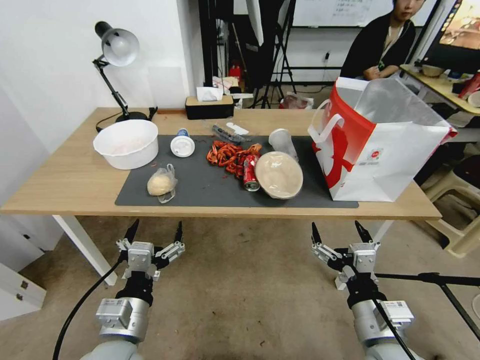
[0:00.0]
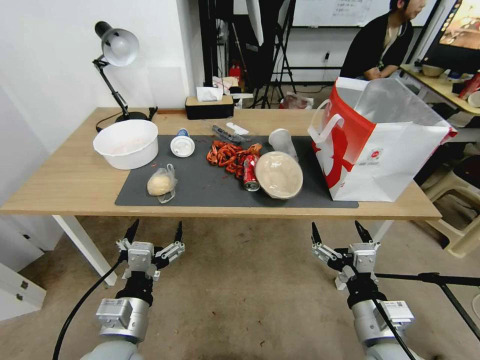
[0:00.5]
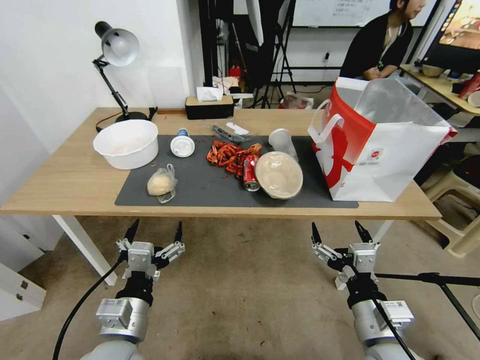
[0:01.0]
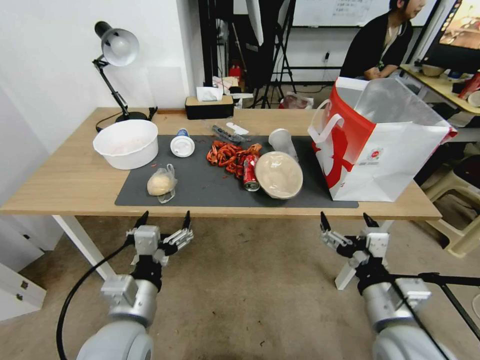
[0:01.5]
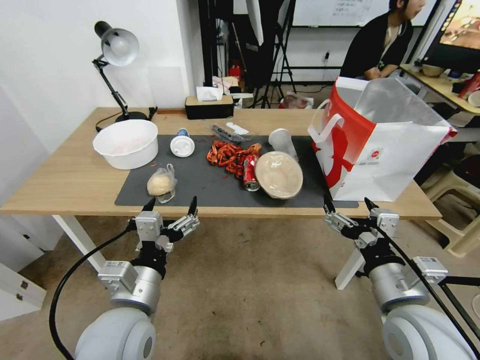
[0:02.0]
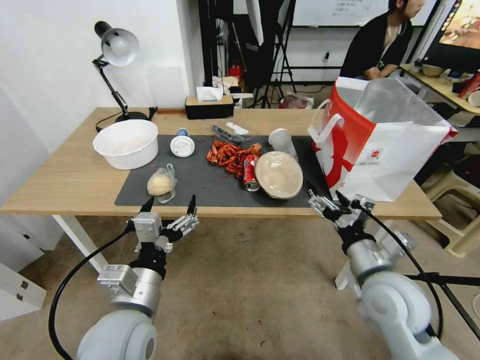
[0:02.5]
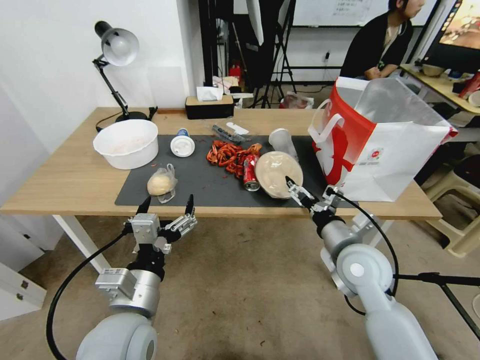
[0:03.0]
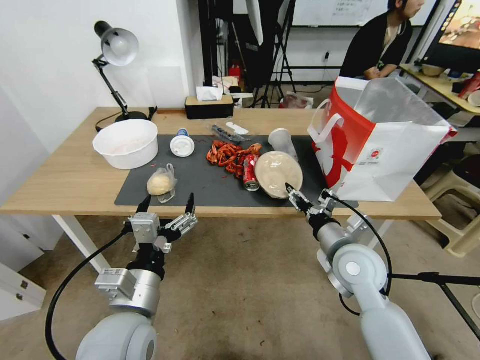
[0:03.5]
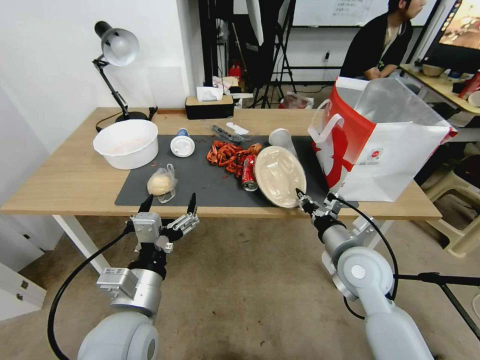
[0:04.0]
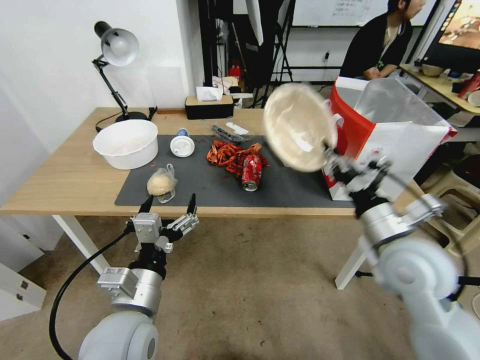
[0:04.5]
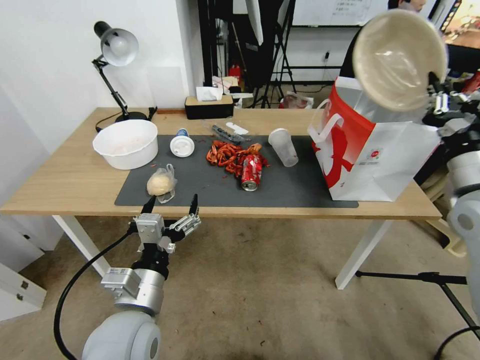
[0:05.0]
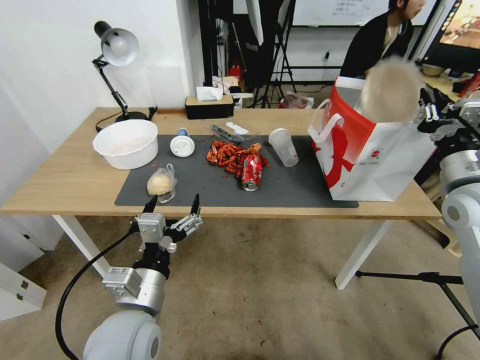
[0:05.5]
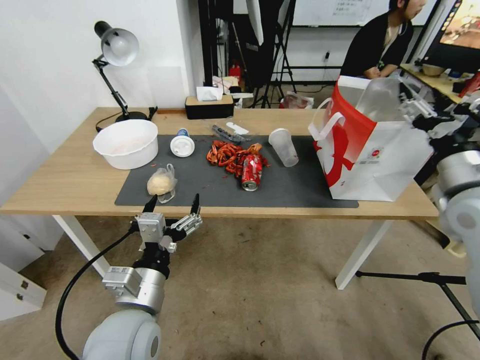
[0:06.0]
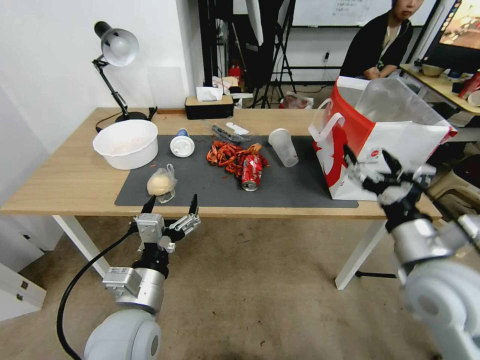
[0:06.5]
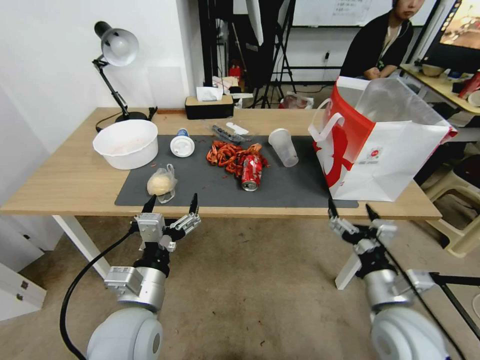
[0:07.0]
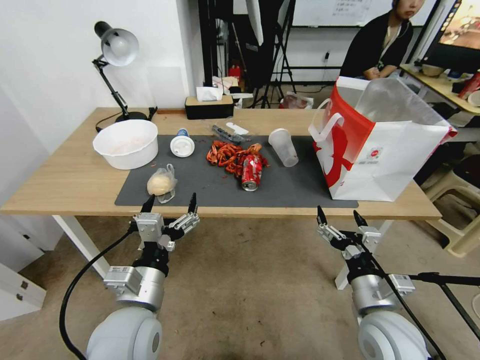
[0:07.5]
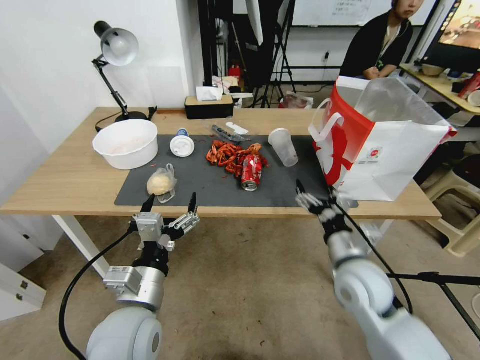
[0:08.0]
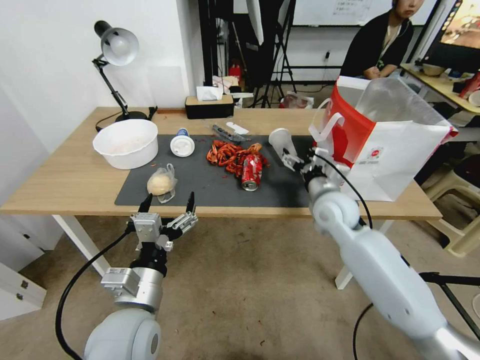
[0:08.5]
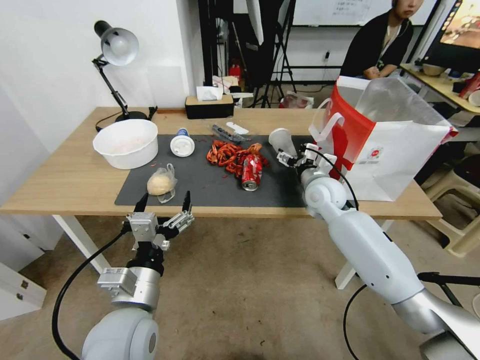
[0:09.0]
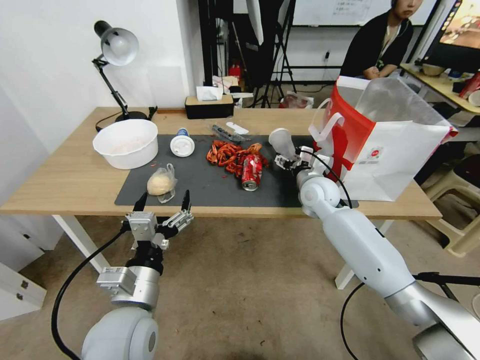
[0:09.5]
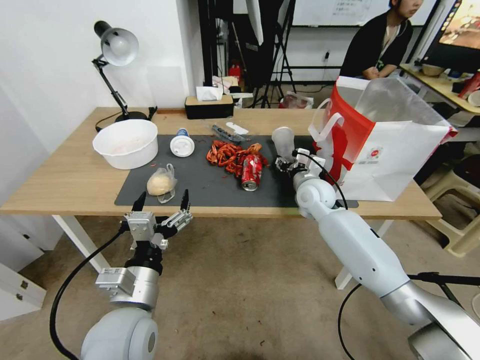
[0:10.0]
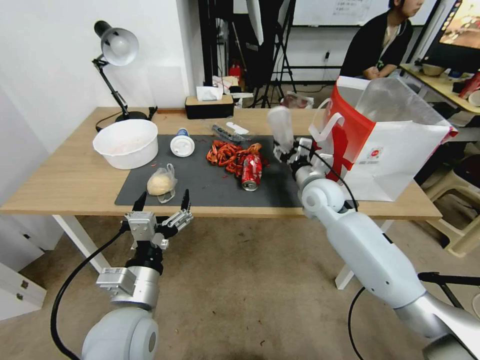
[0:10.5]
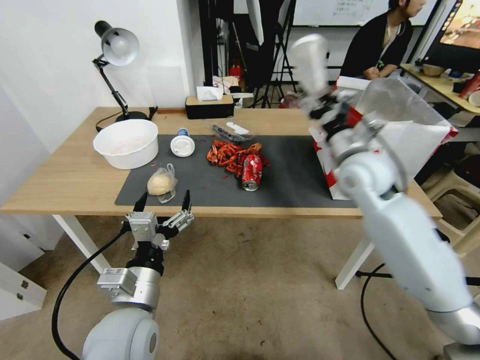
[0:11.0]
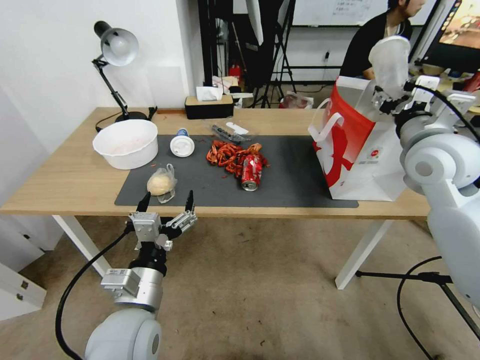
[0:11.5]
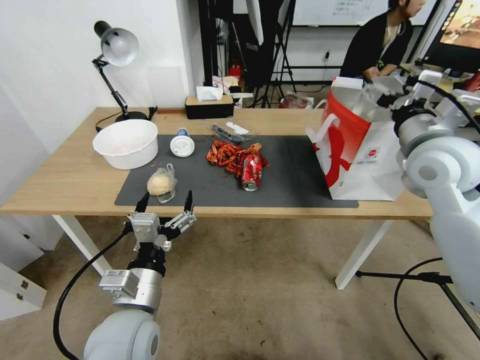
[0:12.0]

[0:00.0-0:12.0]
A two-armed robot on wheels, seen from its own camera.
0:02.0 to 0:04.0: The right gripper travels forward and downward by some 15 cm, and closes its fingers.
0:04.0 to 0:06.0: The right gripper heads upward and to the right, covering about 20 cm, and opens its fingers.
0:06.0 to 0:08.0: The right gripper shifts some 25 cm downward and to the left.
0:08.0 to 0:10.0: The right gripper heads forward, covering about 20 cm, and closes.
0:10.0 to 0:12.0: The right gripper shifts about 25 cm upward, to the right and backward, and opens up.

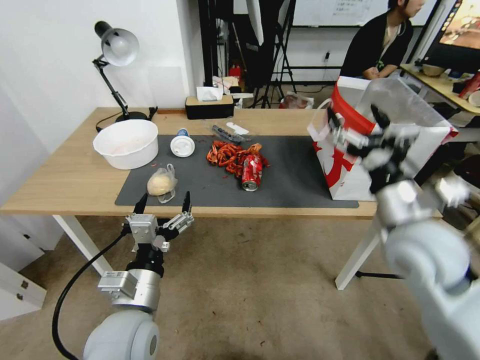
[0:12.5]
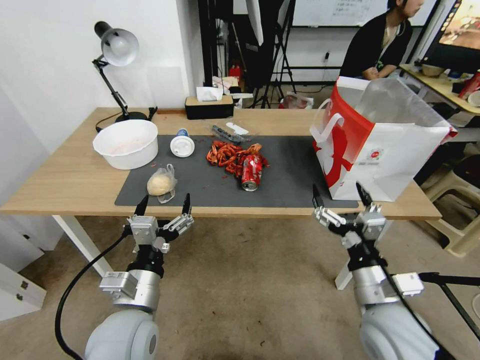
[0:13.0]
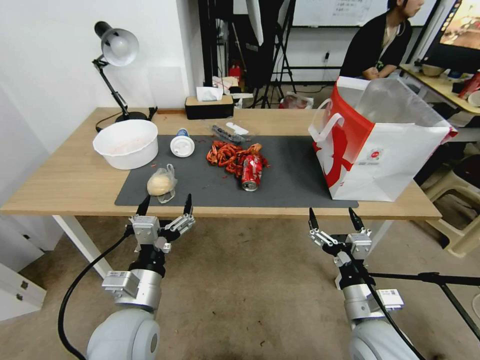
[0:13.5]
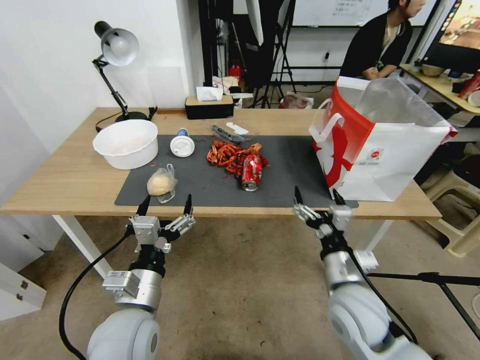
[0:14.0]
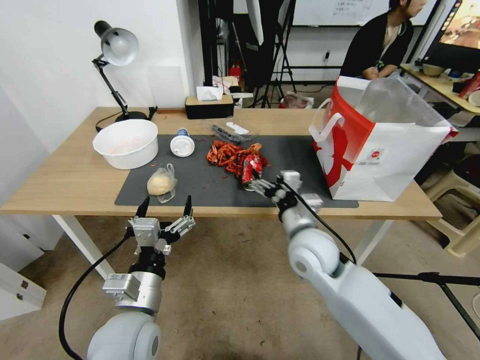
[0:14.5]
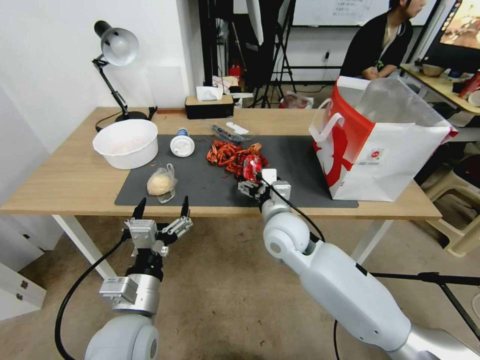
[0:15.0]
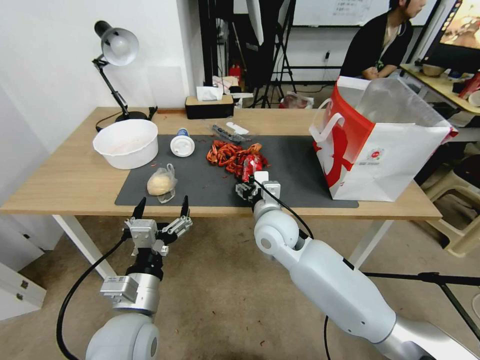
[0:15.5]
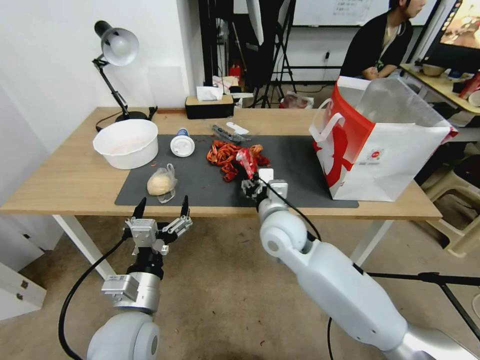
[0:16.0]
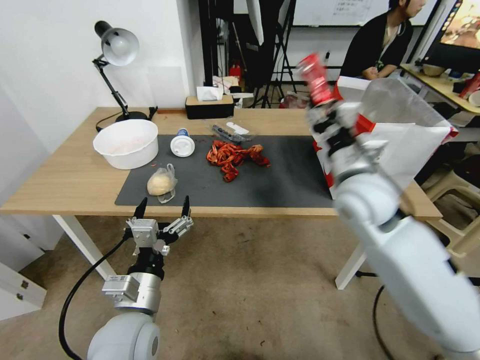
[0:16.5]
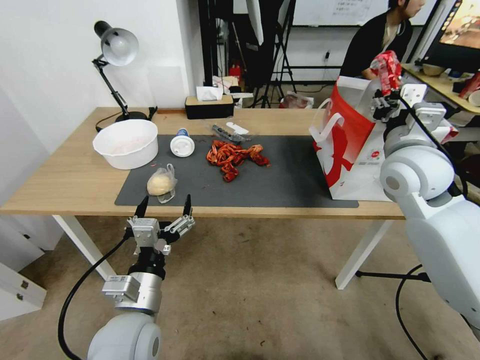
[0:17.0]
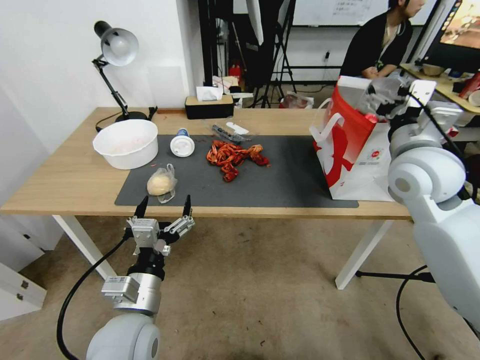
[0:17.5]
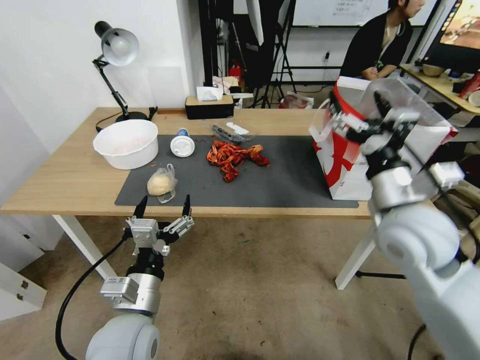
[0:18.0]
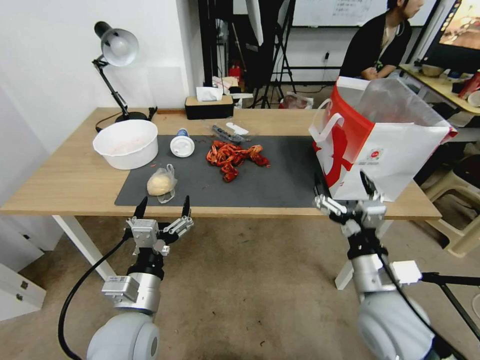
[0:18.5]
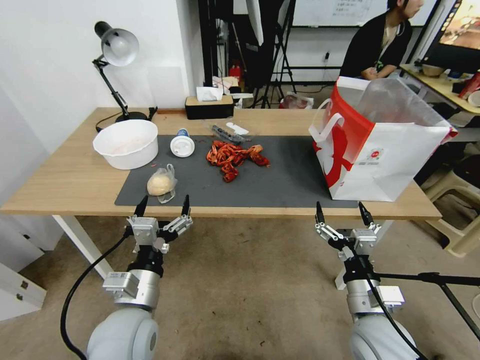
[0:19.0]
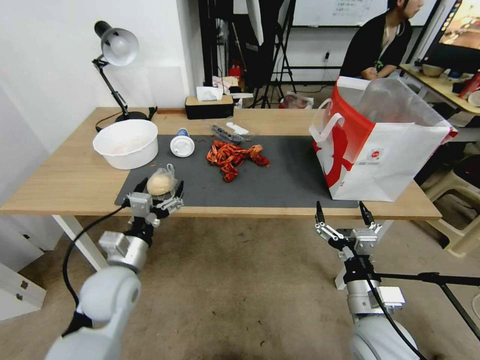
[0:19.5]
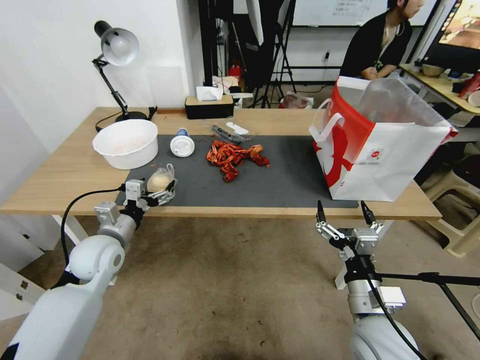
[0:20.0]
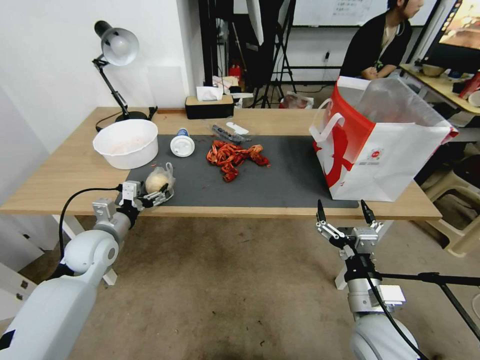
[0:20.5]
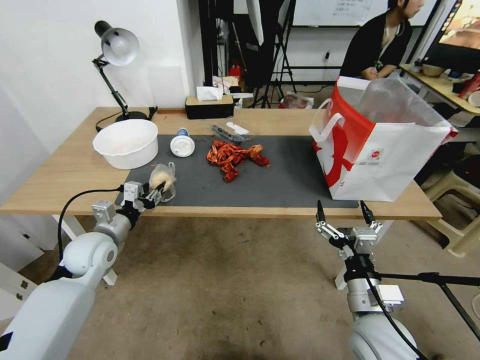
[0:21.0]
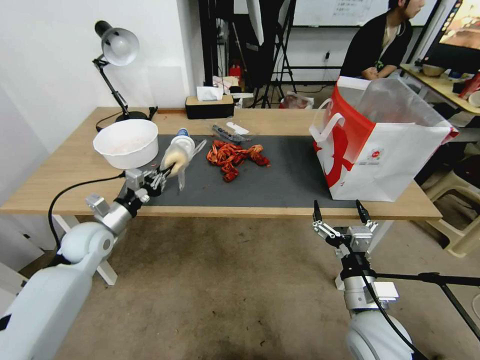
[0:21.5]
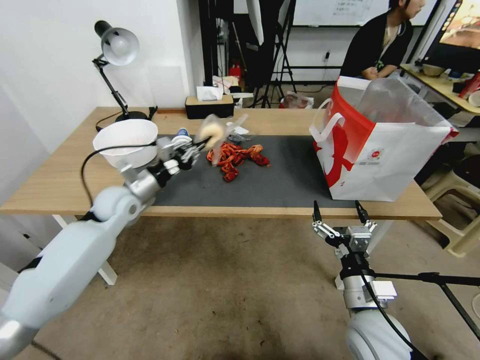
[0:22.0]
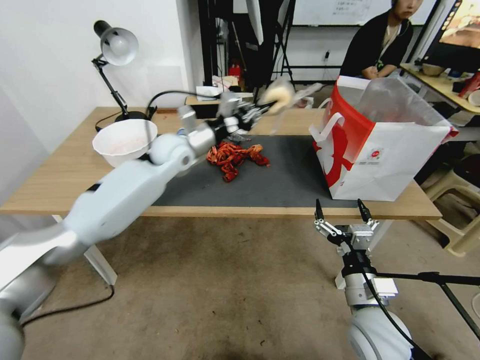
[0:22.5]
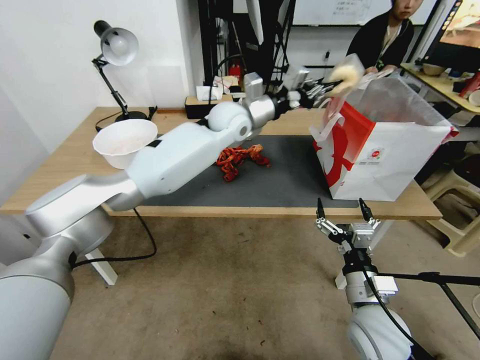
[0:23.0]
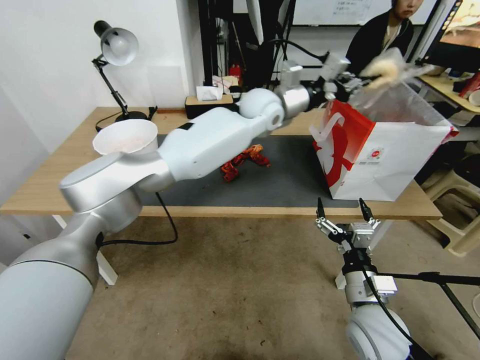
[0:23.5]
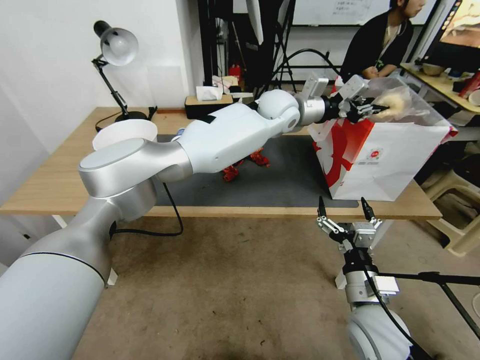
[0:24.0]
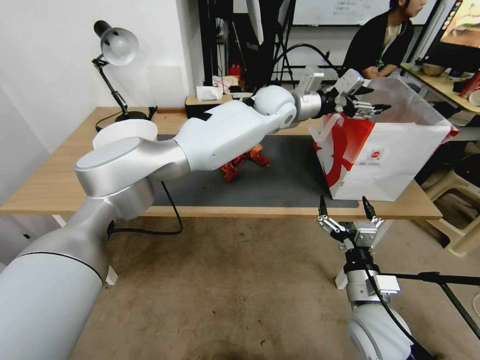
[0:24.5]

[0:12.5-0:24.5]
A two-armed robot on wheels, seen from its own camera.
0:12.5 to 0:14.5: The right gripper heads to the left and downward, covering some 20 cm.
0:14.5 to 0:16.5: The right gripper goes about 15 cm upward and to the right, and closes up.
0:16.5 to 0:18.5: The right gripper shifts some 20 cm backward and downward, and opens up.
0:18.5 to 0:20.5: The right gripper moves downward, approximately 5 cm. Meanwhile the left gripper goes about 25 cm forward and to the left.
0:20.5 to 0:22.5: The left gripper goes roughly 30 cm forward, to the right and upward, and closes.
0:22.5 to 0:24.5: The left gripper is displaced to the right by roughly 25 cm, and opens its fingers.

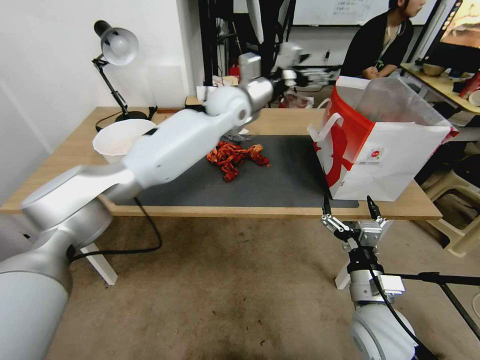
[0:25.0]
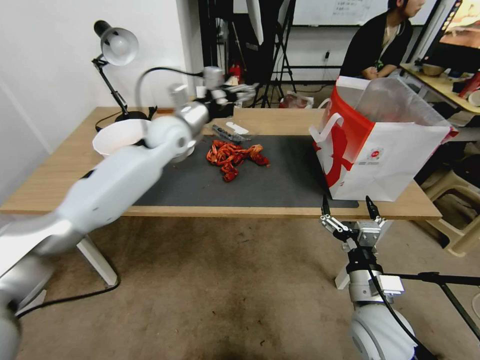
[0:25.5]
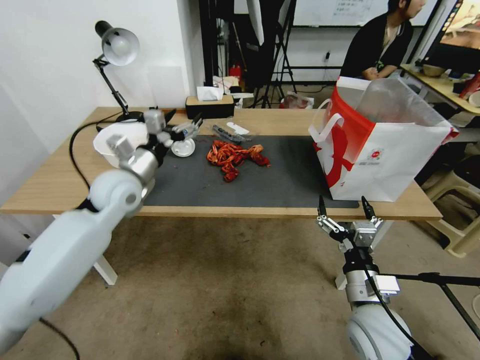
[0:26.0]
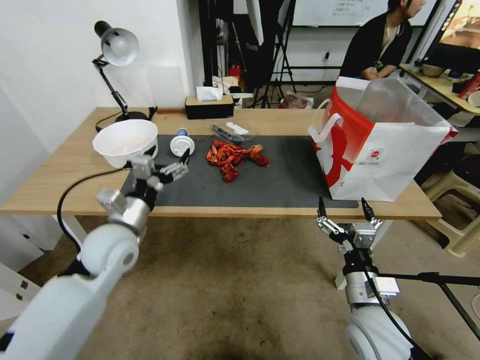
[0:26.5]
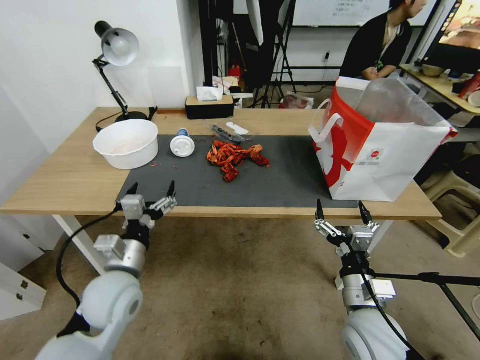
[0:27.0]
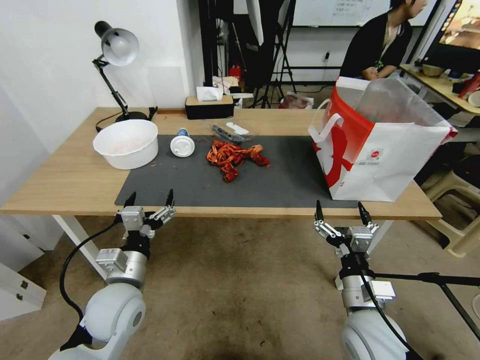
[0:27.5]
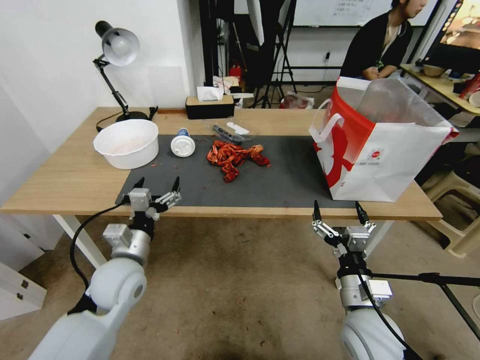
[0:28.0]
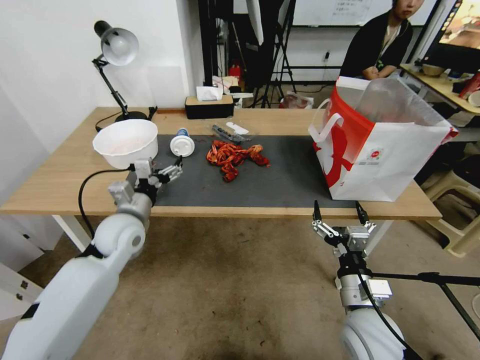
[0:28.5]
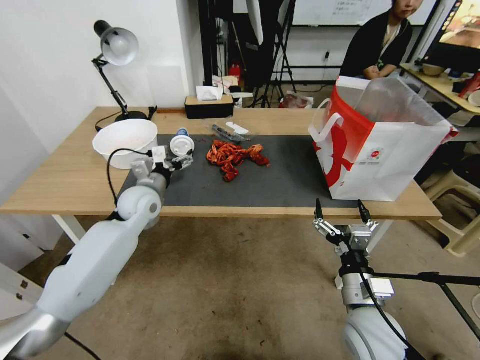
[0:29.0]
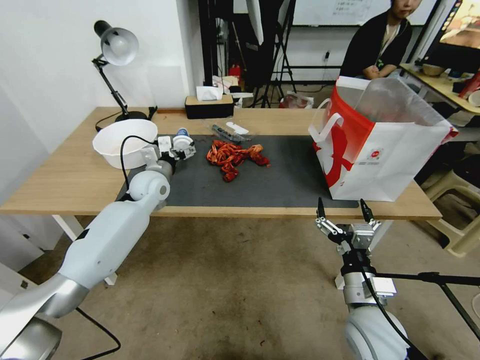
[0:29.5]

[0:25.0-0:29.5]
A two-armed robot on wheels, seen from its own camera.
0:25.0 to 0:27.0: The left gripper is displaced backward, downward and to the left by about 50 cm.
0:27.0 to 0:29.5: The left gripper shifts approximately 25 cm forward.
